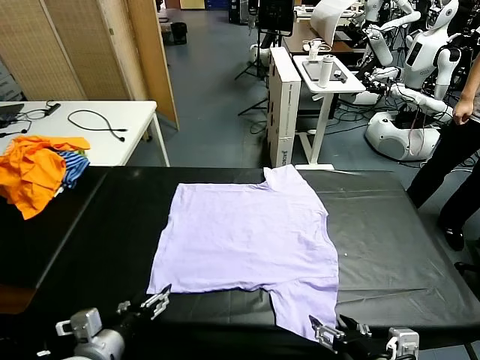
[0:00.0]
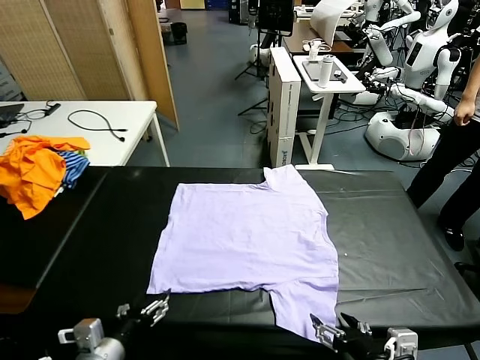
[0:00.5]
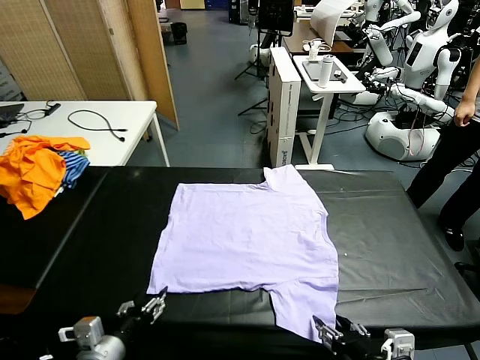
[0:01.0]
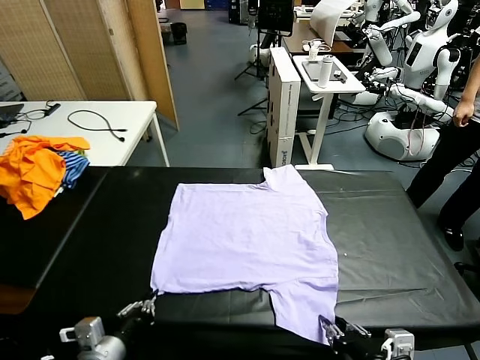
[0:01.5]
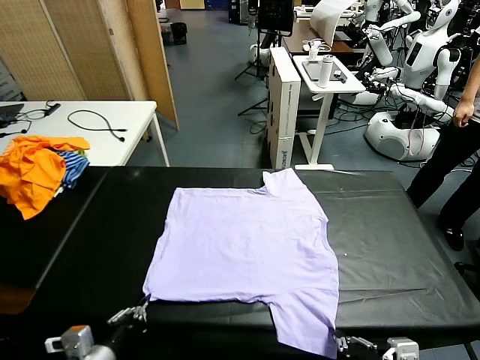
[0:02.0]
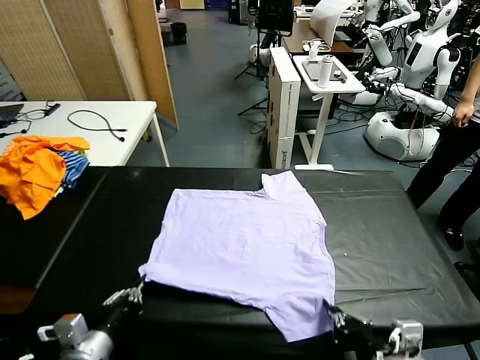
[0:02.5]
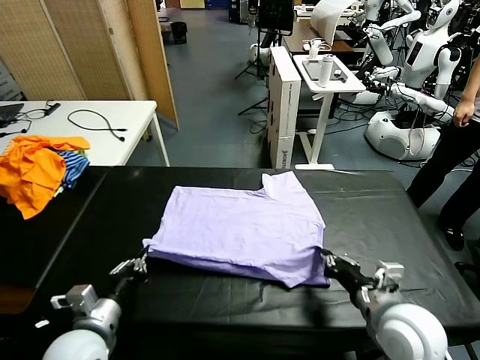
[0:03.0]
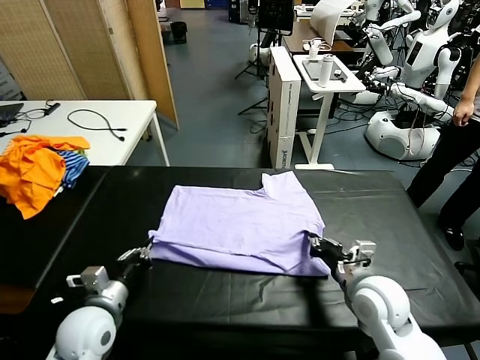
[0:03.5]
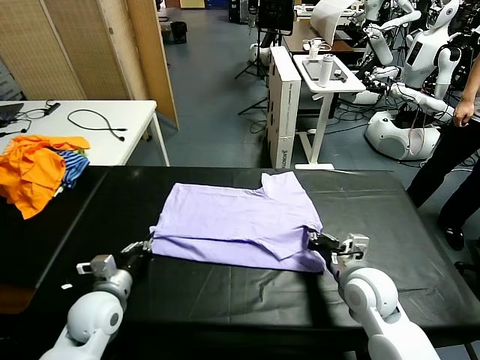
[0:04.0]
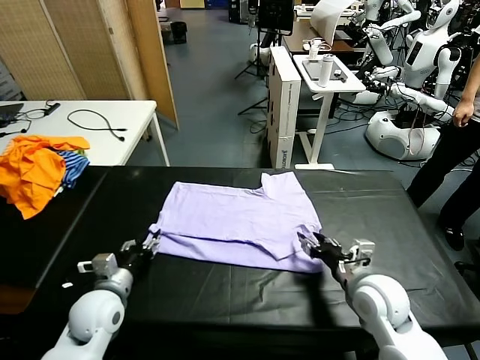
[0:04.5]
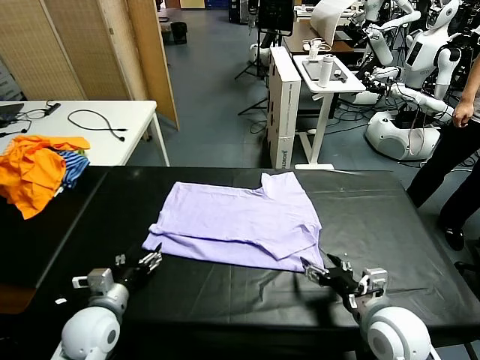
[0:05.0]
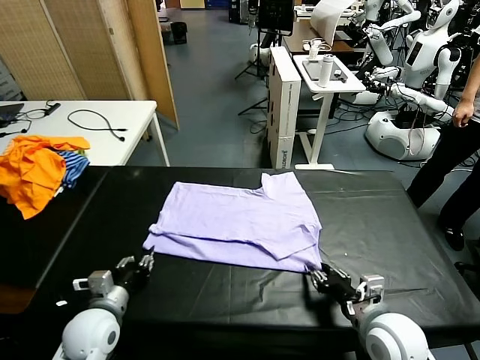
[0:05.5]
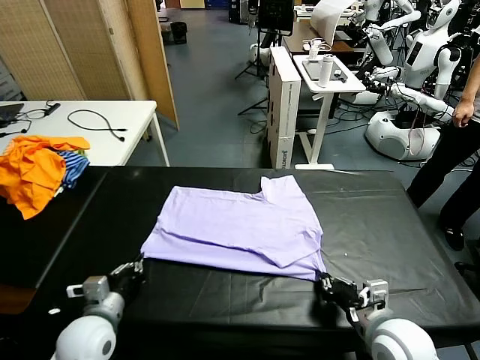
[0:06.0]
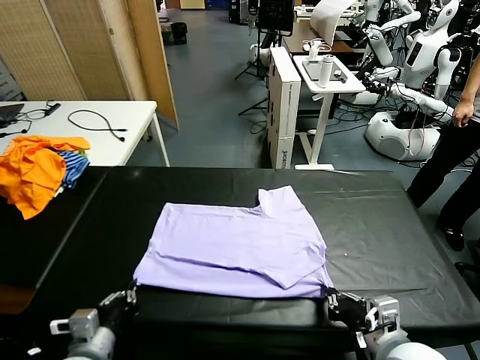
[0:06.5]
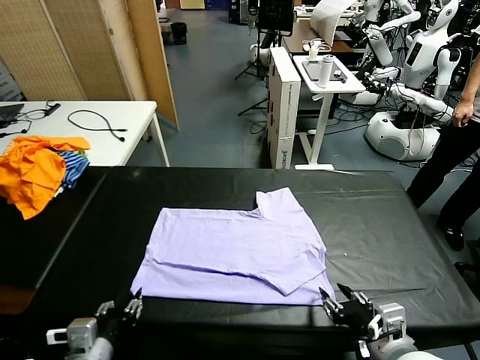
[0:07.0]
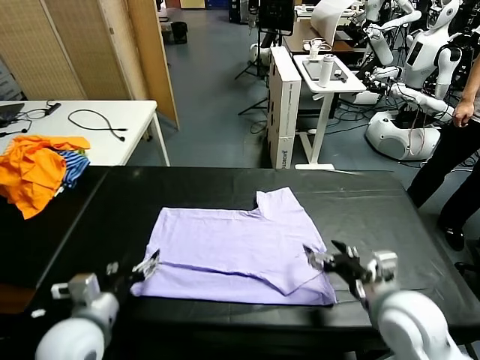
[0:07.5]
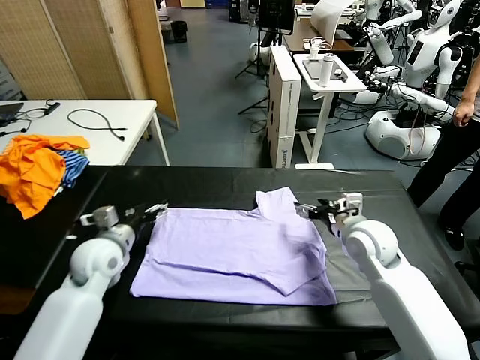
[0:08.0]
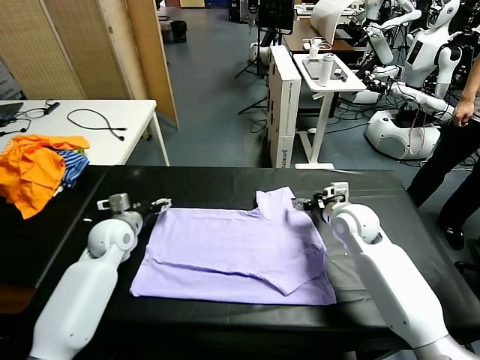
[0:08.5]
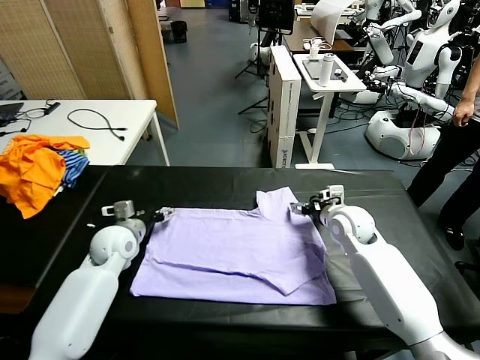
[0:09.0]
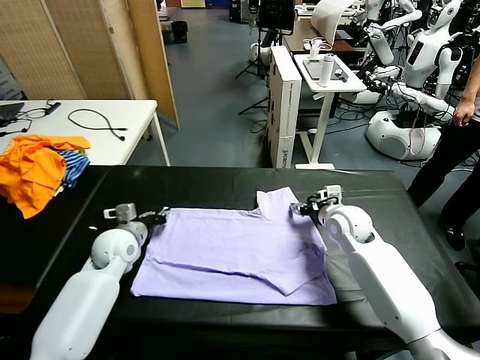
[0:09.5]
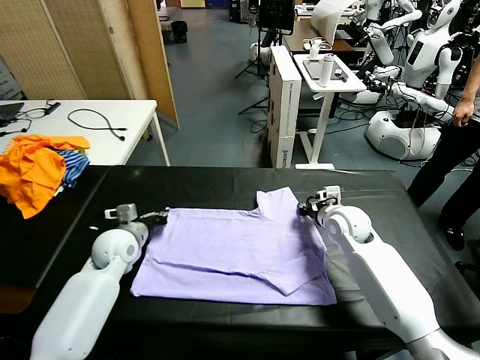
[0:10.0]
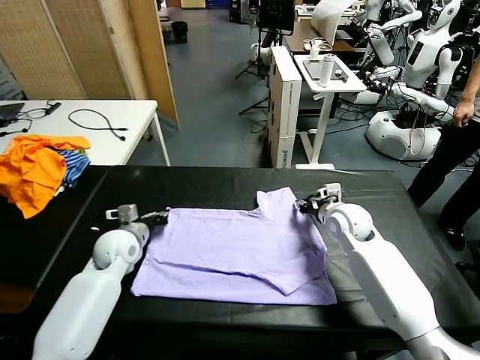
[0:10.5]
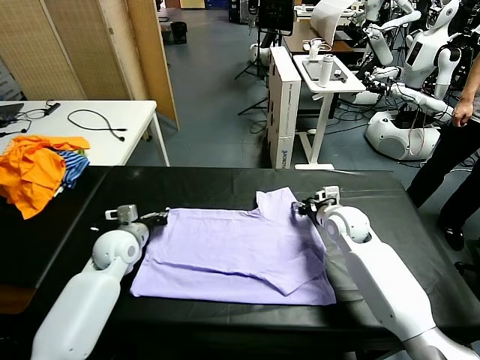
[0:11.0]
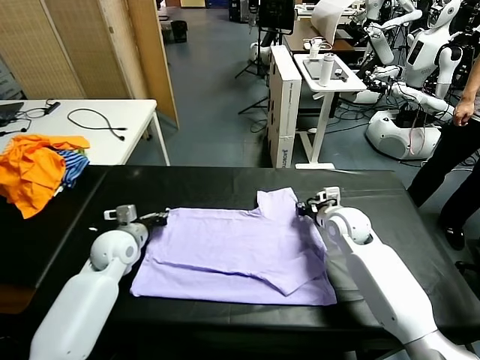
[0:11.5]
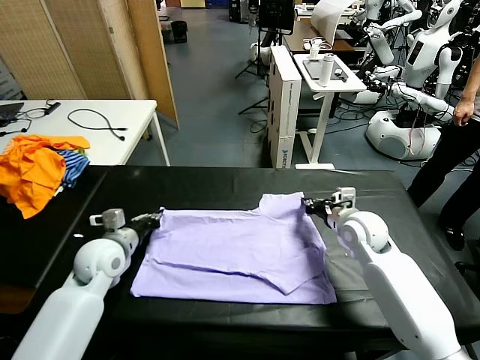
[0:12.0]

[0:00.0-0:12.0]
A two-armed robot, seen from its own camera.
Task of the whole recording: fold and organize the clothes.
Step, 0:00.0 to 0:01.5: use both grippers simultaneously to clamp the lower edge of the clothing fabric.
Step, 0:02.5 to 0:04.5: use both grippers to drag the lower edge of the fabric forward and fold it over the upper edge.
Step, 0:05.0 to 0:07.0: Drag the clothes downward with both gripper.
Step, 0:07.5 to 0:11.0: use both grippers simultaneously to clamp the upper edge of the clothing fabric.
0:02.0 to 0:04.0: The grippers both shift forward by approximately 20 cm.
0:04.0 to 0:06.0: The left gripper travels backward by about 5 cm, and opens and closes again. The right gripper is displaced backward by roughly 10 cm, and opens, then closes again.
0:06.0 to 0:08.0: The grippers both shift forward by some 20 cm. The left gripper opens up. Meanwhile the right gripper opens its fingers.
0:08.0 to 0:10.0: The left gripper closes. Meanwhile the right gripper shifts by approximately 5 cm, and closes.
0:10.0 to 0:12.0: The two grippers go roughly 5 cm backward. The right gripper opens, then closes again.

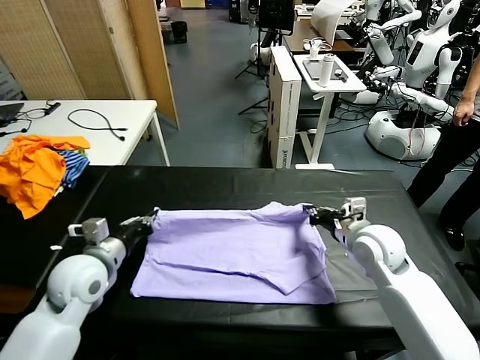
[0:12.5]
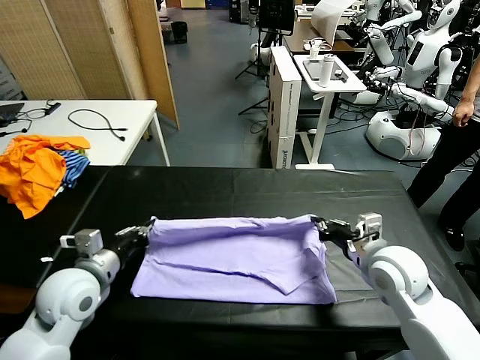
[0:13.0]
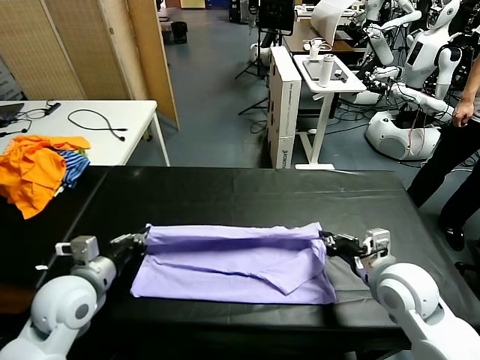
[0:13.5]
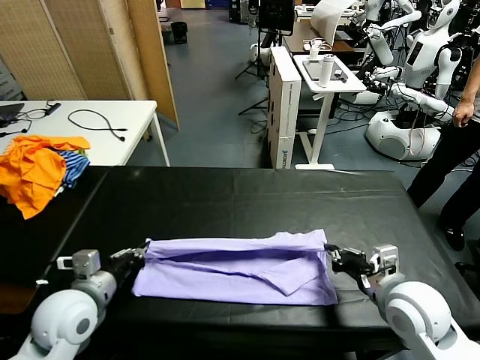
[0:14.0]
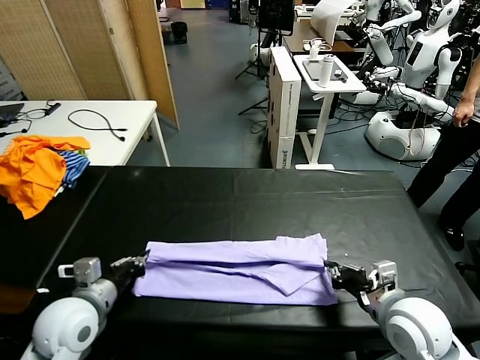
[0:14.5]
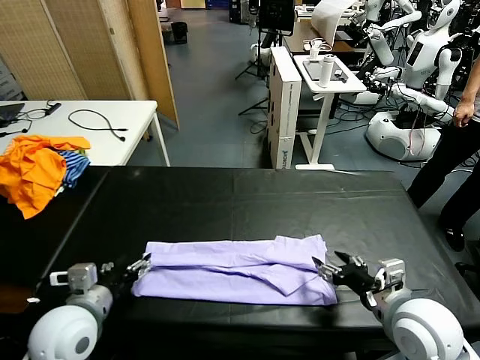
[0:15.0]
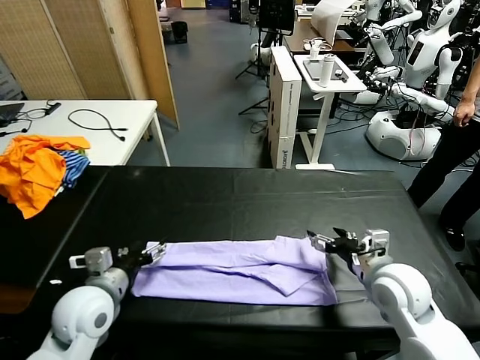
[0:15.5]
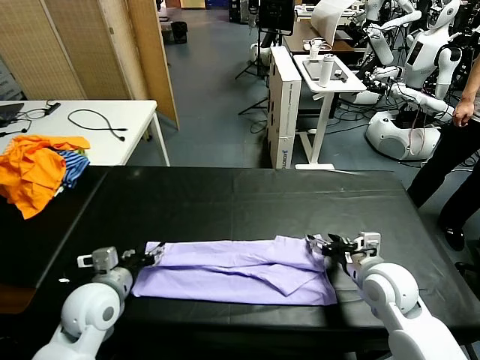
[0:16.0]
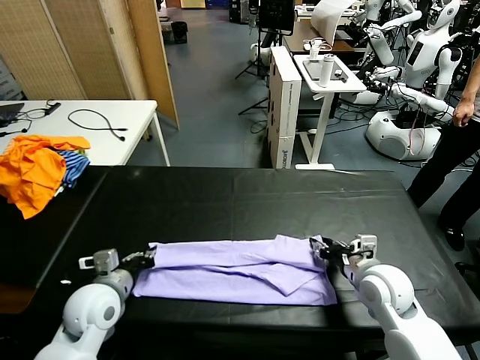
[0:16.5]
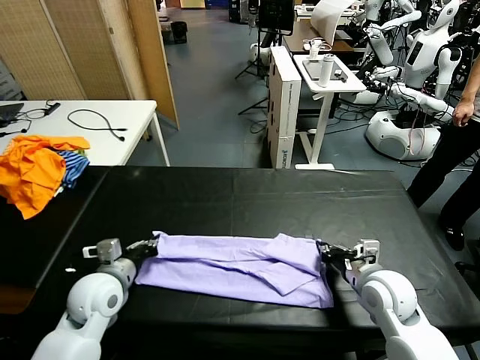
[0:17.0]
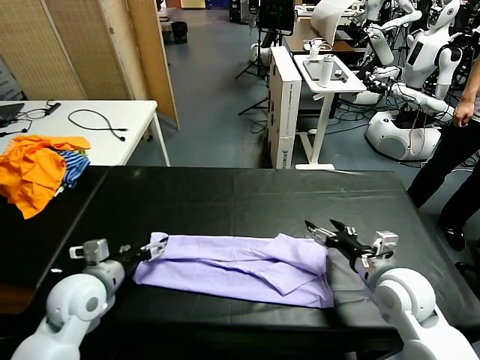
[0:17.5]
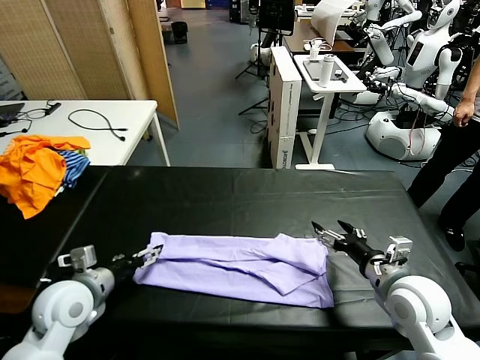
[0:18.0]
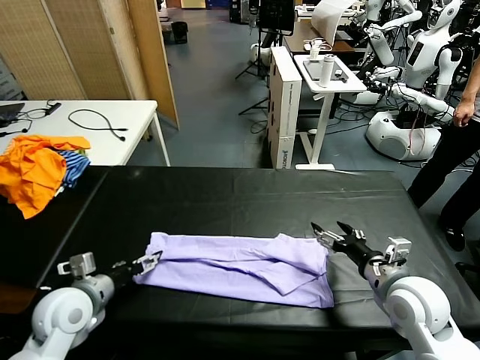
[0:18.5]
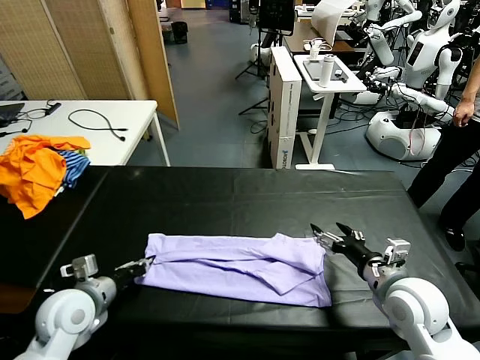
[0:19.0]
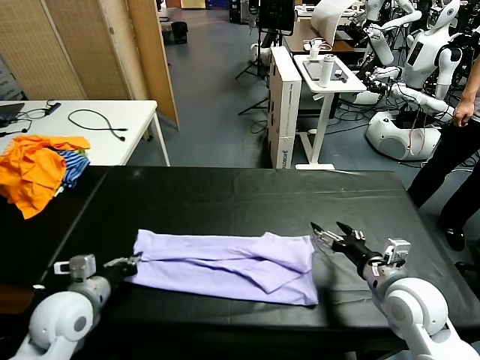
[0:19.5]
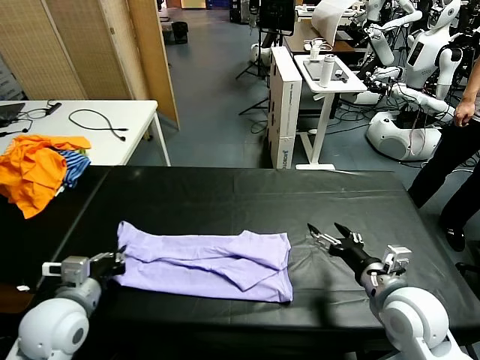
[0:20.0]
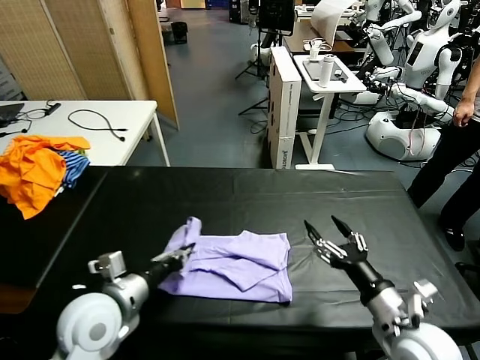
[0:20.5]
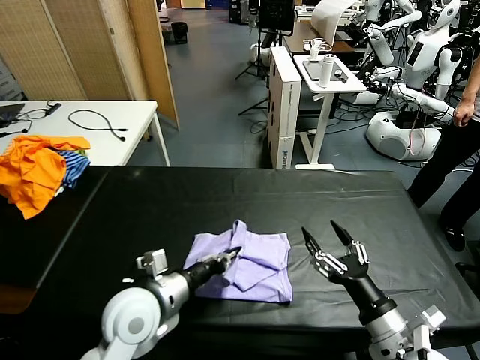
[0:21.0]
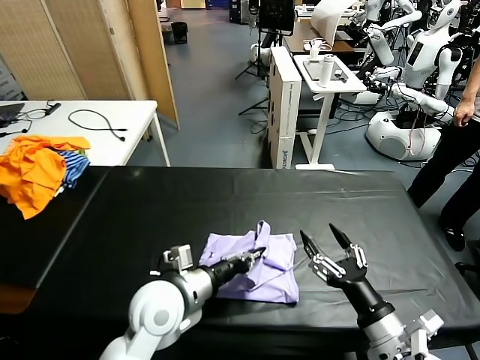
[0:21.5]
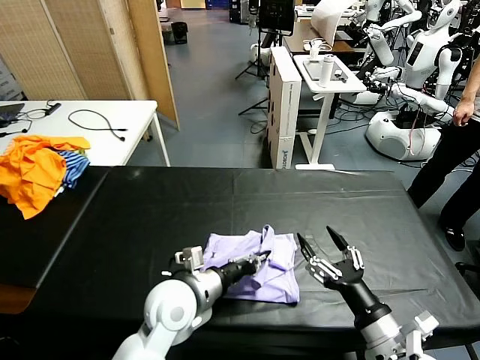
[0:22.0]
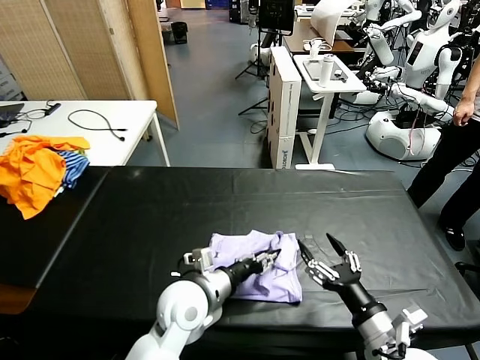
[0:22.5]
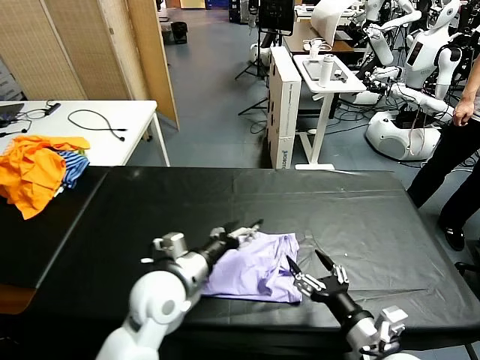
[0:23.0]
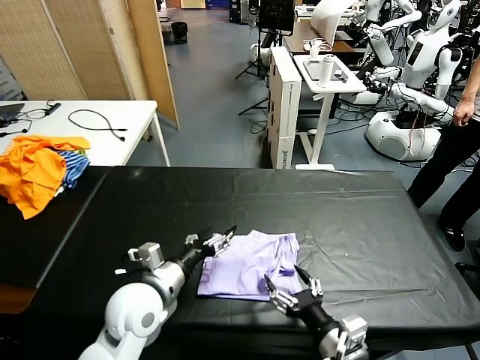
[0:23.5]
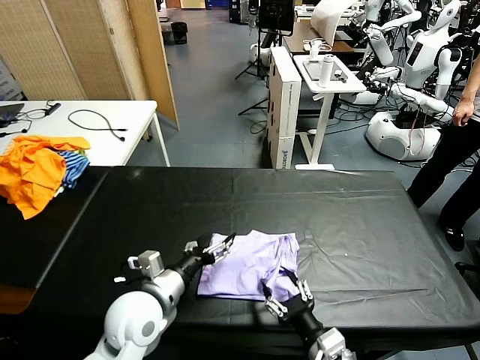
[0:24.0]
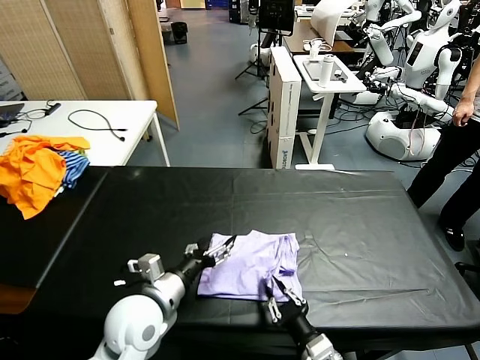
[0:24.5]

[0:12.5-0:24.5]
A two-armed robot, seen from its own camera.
Task of the whole recording: fold and organize the clothes.
Step, 0:12.5 to 0:17.5: use both grippers to drag the upper edge of the fabric backward and fold it over the lower edge.
Step, 0:18.0 to 0:19.0: use the left gripper to clamp the left edge of the fabric.
0:12.5 to 0:14.5: The left gripper shifts some 5 cm backward; the right gripper shifts about 15 cm backward.
0:14.5 to 0:16.5: The left gripper moves roughly 5 cm, and opens, then closes once more, while the right gripper is displaced forward by roughly 10 cm, and opens, then closes again.
0:16.5 to 0:18.5: The right gripper shifts by roughly 5 cm, and opens its fingers. Meanwhile the left gripper opens its fingers.
0:18.5 to 0:20.5: The right gripper moves backward, approximately 10 cm. Meanwhile the left gripper heads to the right, covering roughly 10 cm, and closes up.
0:20.5 to 0:22.5: The left gripper is displaced to the right and downward by about 15 cm, and opens its fingers.
0:22.5 to 0:24.5: The left gripper shifts some 10 cm to the left, and opens, while the right gripper is displaced to the left and downward by roughly 10 cm, and closes its fingers.

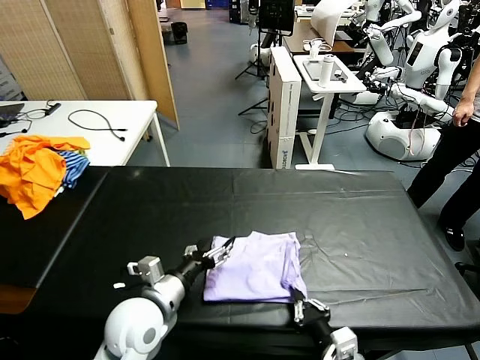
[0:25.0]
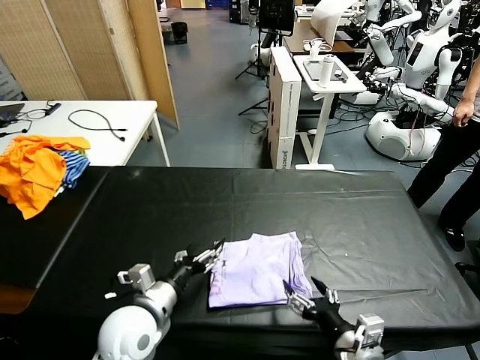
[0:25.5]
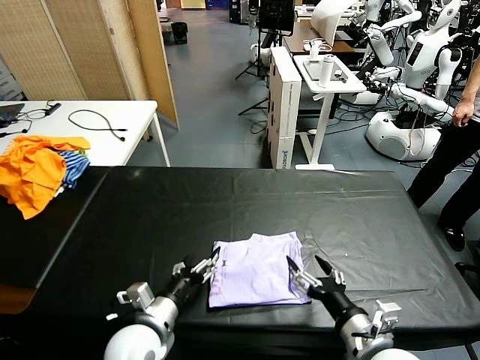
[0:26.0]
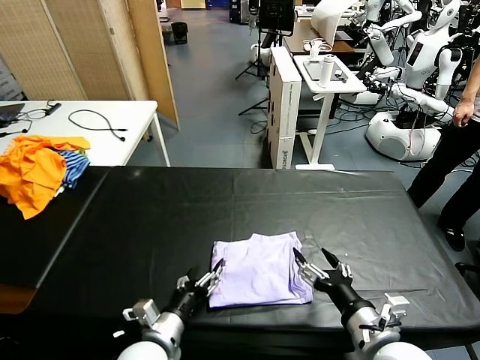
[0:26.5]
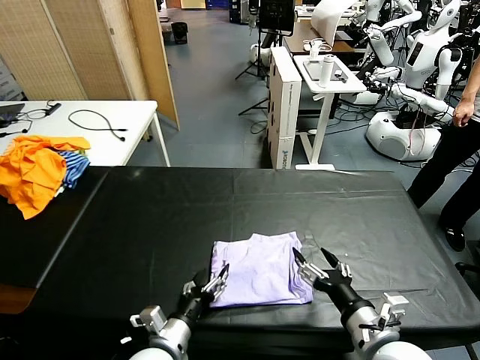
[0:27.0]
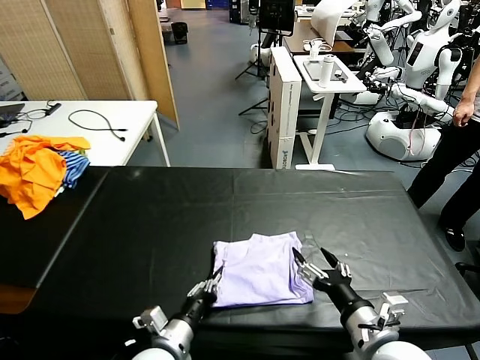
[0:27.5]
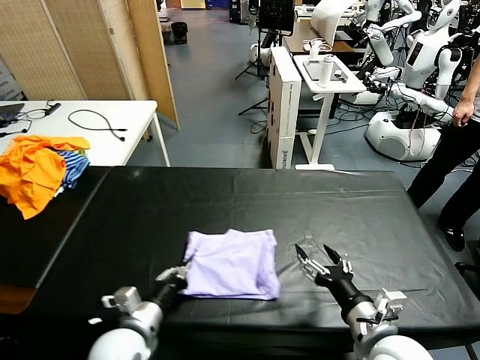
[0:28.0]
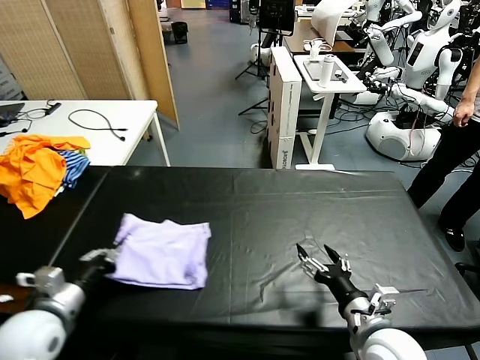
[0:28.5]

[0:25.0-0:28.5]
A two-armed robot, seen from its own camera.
Task of the whole recording: fold and organize the clothes.
0:25.0 to 0:27.0: The left gripper shifts approximately 10 cm downward and backward; the right gripper moves upward, about 10 cm, and opens up.
0:27.0 to 0:28.5: The left gripper goes some 20 cm to the left and upward, and closes its fingers.
